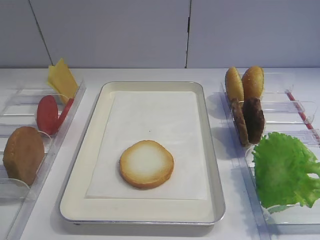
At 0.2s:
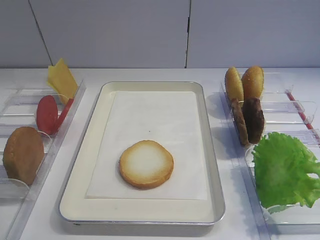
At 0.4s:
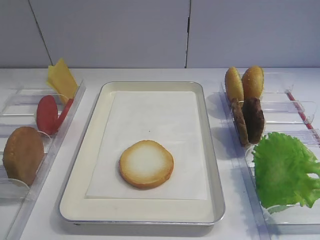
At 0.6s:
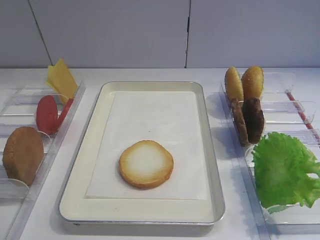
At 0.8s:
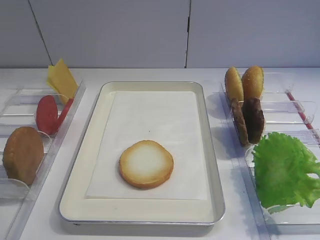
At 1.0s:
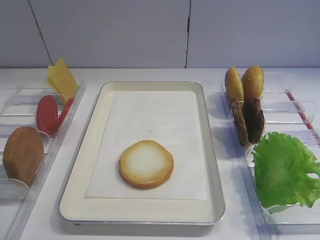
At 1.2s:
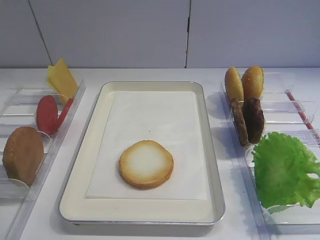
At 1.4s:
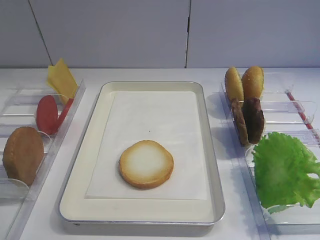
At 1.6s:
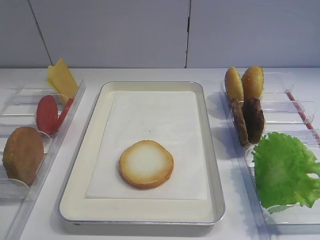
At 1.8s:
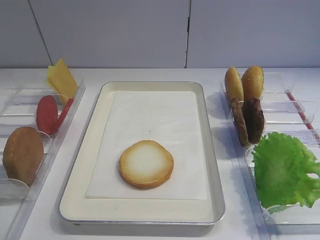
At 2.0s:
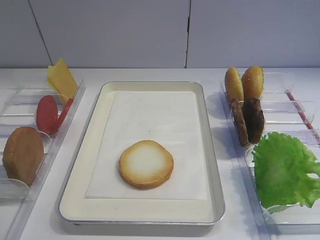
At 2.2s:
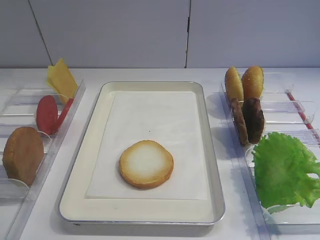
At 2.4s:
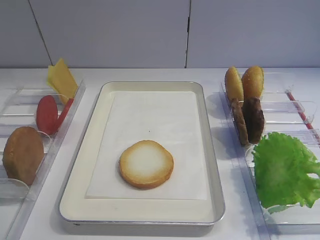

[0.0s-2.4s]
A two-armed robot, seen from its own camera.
0.0s to 2.4s: Both grippers stay about where they are.

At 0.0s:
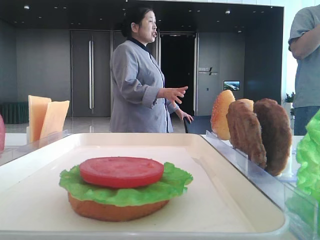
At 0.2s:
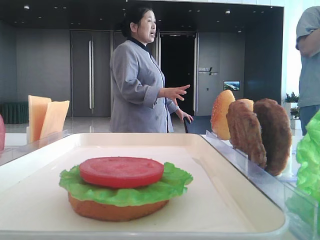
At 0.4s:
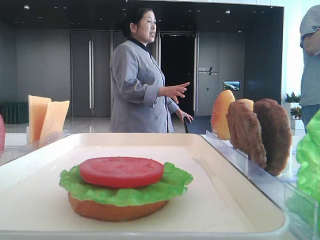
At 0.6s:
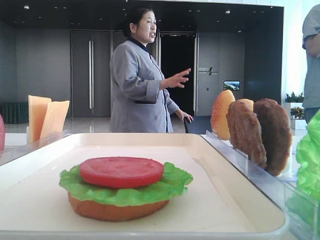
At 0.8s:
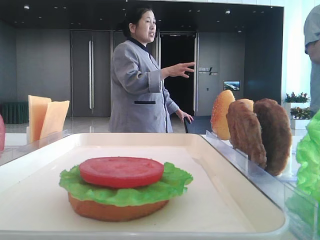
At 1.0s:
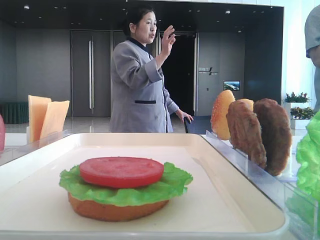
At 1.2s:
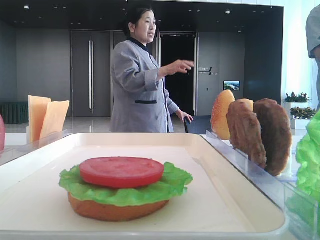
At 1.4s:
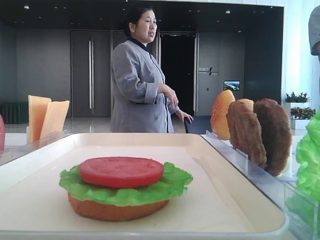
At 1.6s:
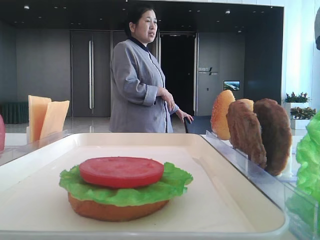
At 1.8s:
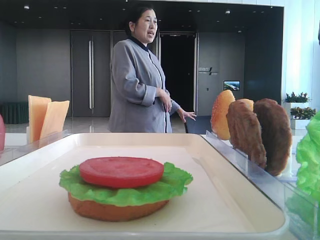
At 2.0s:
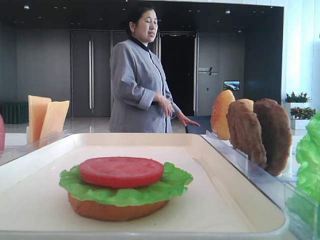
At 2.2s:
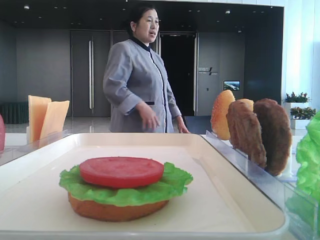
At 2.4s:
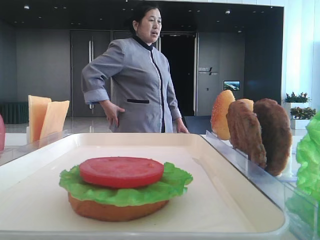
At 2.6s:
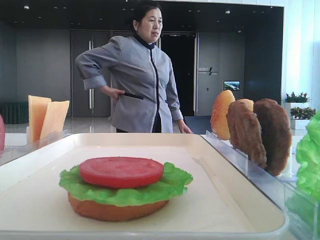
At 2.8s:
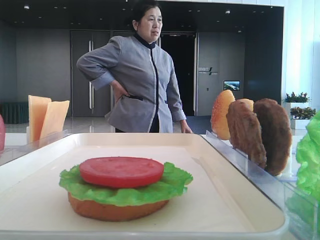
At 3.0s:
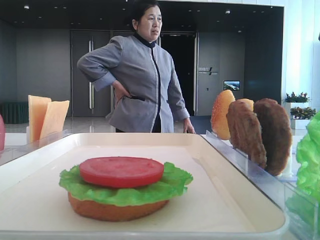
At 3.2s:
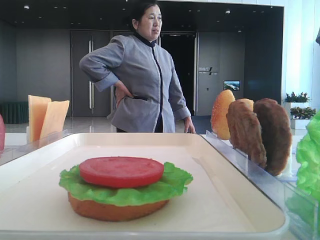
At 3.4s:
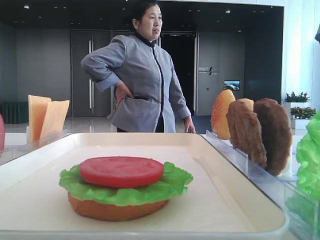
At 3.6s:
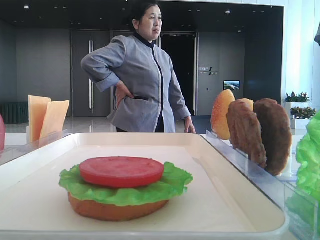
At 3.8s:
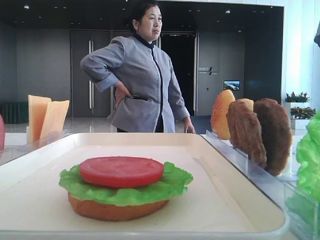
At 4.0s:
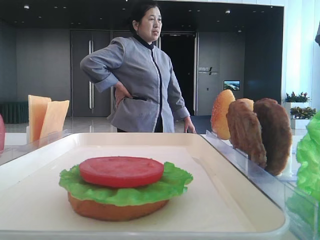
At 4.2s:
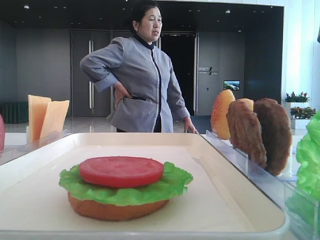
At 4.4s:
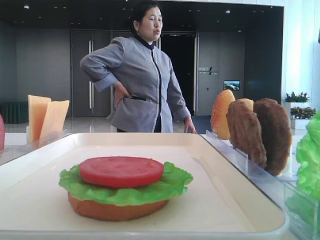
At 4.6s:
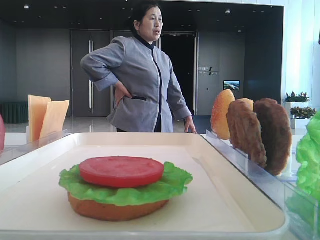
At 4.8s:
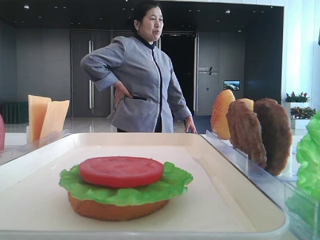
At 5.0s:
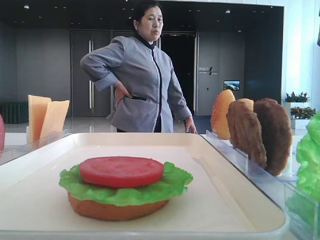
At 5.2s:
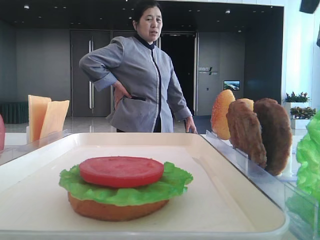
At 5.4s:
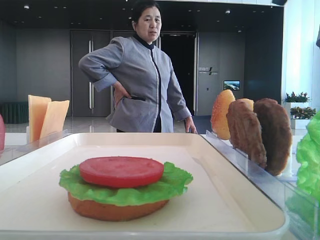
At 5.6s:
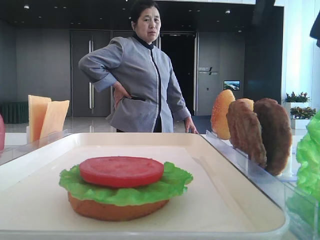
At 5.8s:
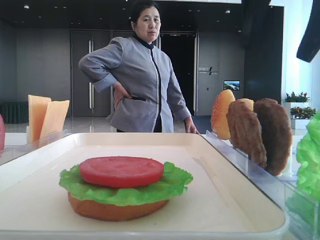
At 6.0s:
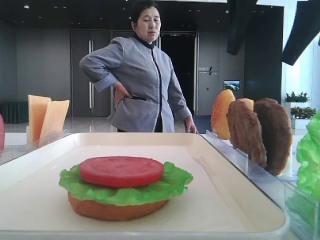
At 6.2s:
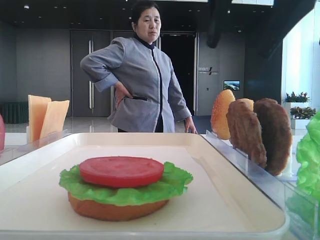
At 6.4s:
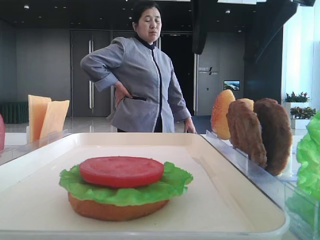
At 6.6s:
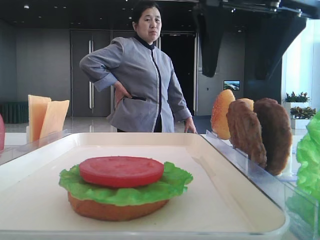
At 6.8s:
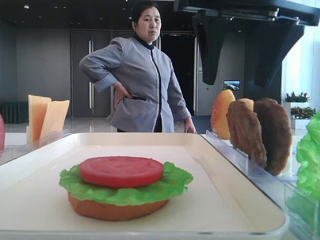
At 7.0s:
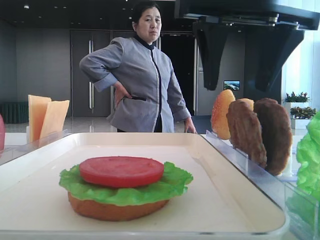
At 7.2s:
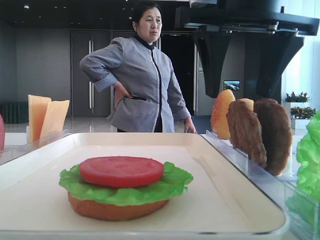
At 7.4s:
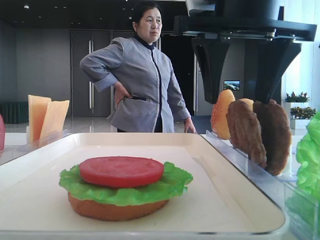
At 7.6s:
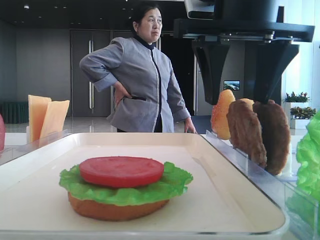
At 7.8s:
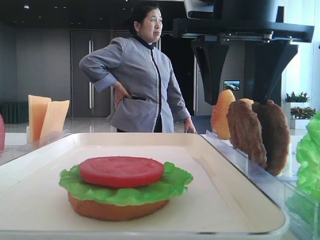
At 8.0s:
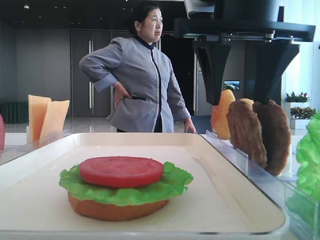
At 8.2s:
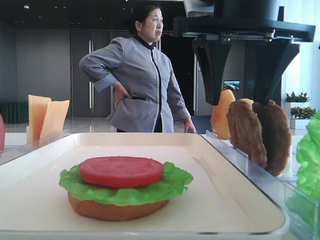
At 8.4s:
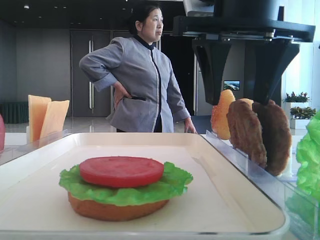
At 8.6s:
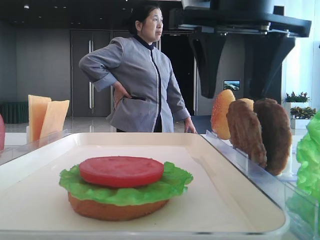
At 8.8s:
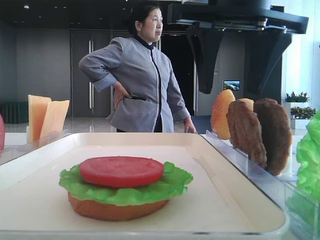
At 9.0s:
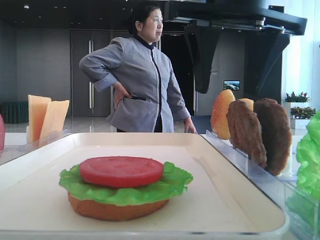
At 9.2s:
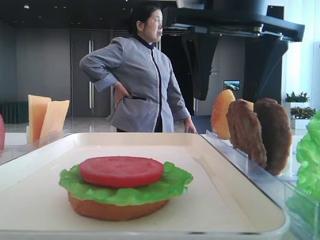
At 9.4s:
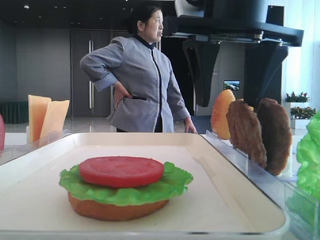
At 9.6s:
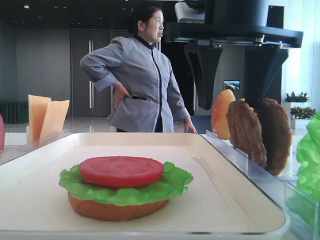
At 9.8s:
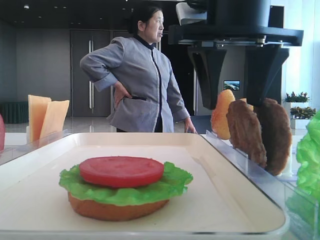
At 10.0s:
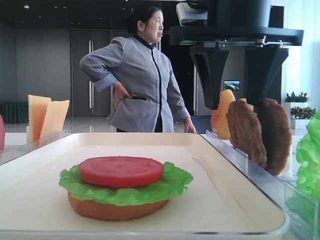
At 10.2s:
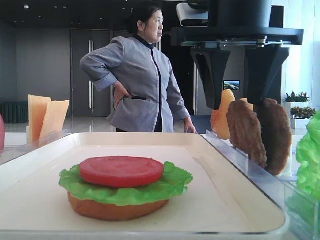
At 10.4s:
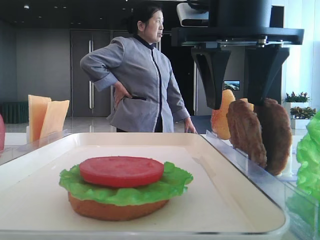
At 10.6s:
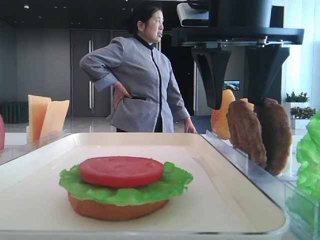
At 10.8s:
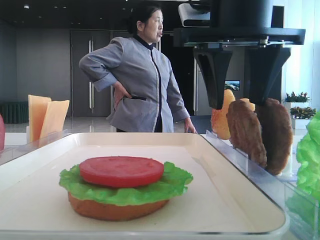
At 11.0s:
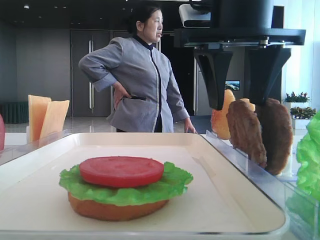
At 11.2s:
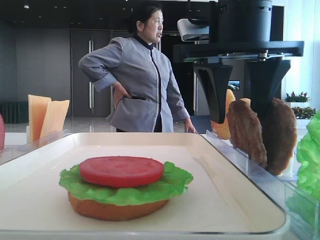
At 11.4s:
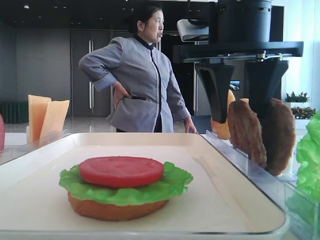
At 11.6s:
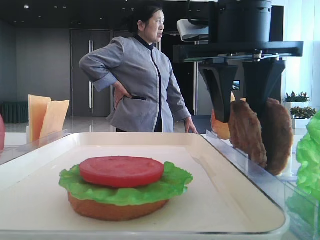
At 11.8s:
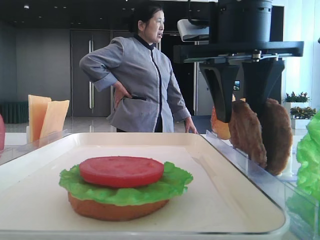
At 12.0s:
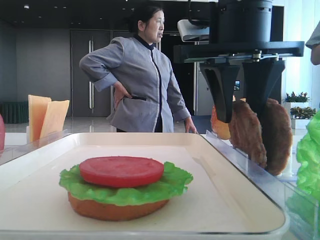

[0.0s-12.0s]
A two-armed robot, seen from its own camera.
1.6s to 3.0s: The right gripper moves forward, roughly 10 cm.
3.0s to 4.4s: The right gripper is displaced forward by approximately 15 cm.
4.4s to 6.0s: The right gripper travels to the left by about 20 cm.
6.0s to 7.6s: The right gripper shifts by some 5 cm.
7.6s to 12.0s: The grippers stay close to where they were, moving slightly.

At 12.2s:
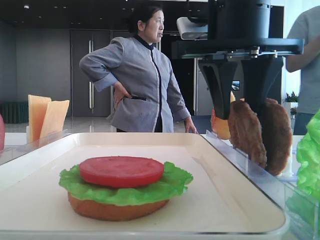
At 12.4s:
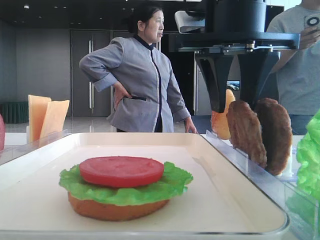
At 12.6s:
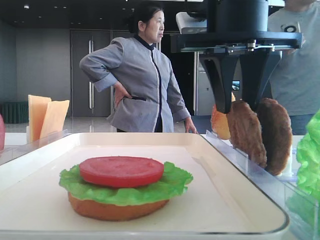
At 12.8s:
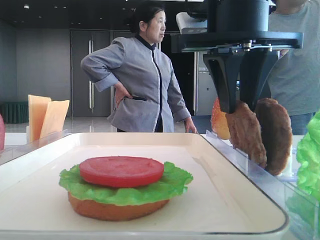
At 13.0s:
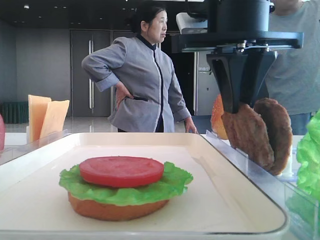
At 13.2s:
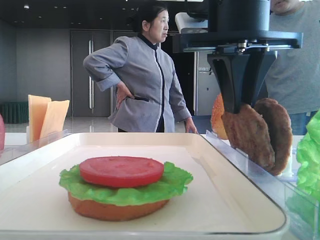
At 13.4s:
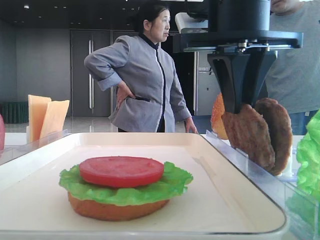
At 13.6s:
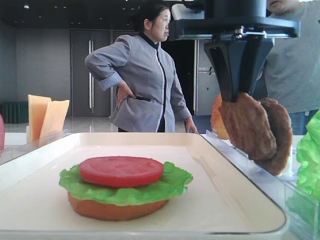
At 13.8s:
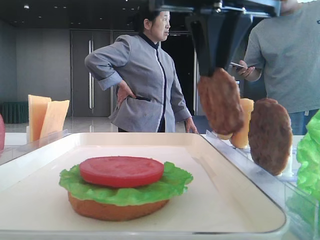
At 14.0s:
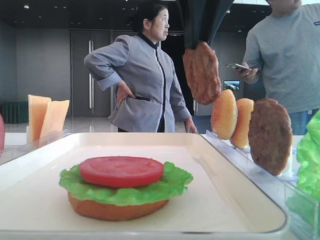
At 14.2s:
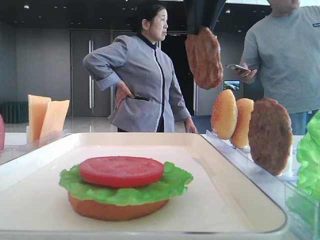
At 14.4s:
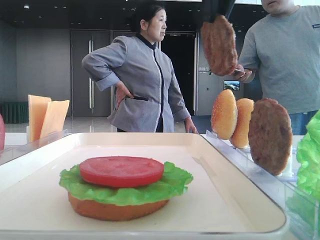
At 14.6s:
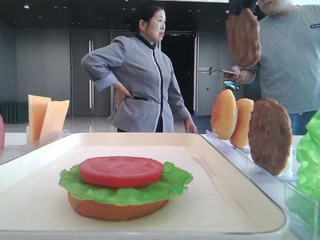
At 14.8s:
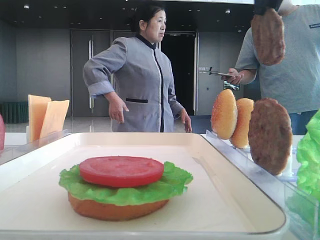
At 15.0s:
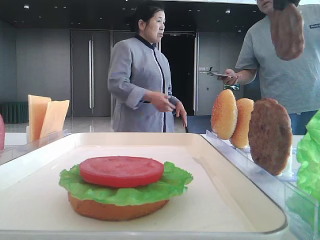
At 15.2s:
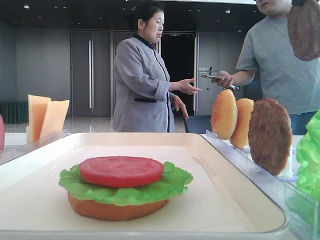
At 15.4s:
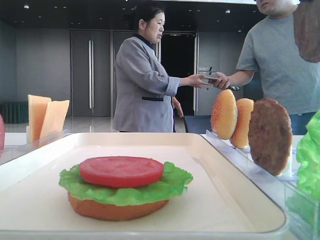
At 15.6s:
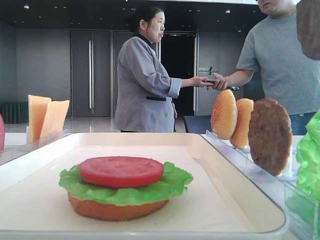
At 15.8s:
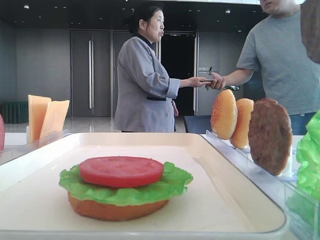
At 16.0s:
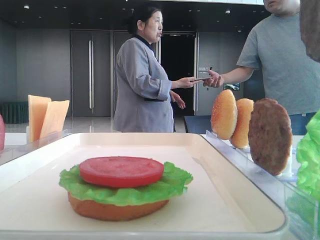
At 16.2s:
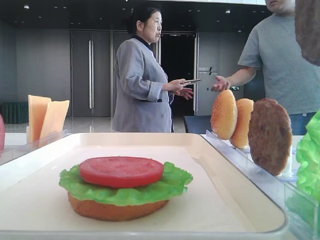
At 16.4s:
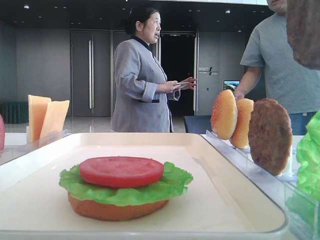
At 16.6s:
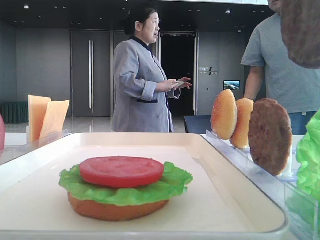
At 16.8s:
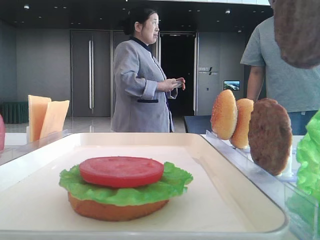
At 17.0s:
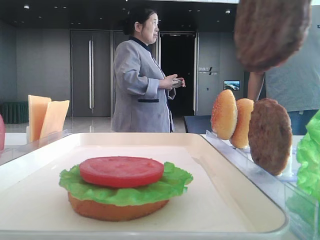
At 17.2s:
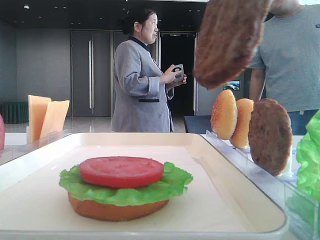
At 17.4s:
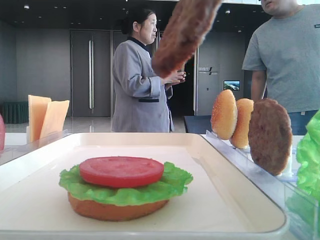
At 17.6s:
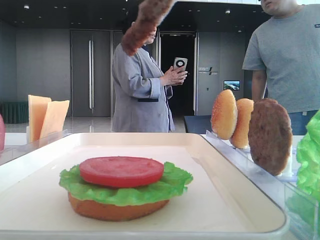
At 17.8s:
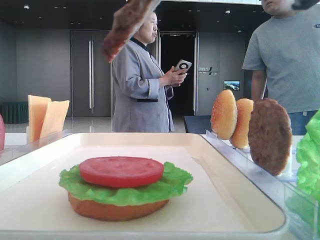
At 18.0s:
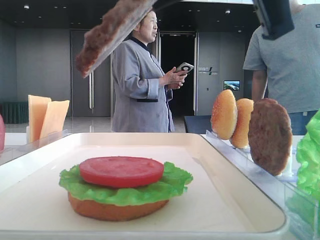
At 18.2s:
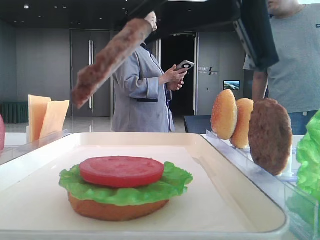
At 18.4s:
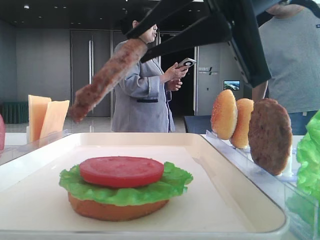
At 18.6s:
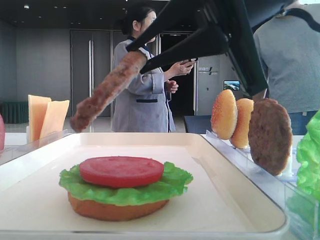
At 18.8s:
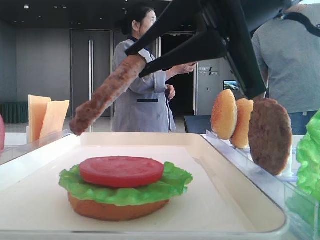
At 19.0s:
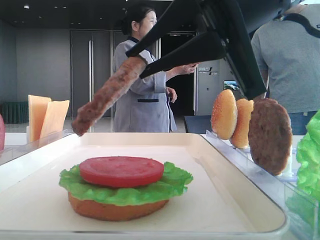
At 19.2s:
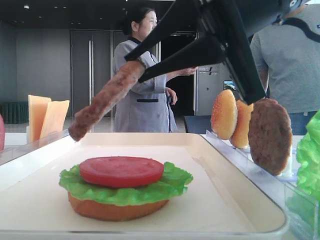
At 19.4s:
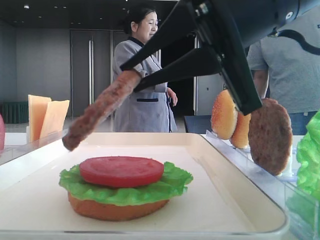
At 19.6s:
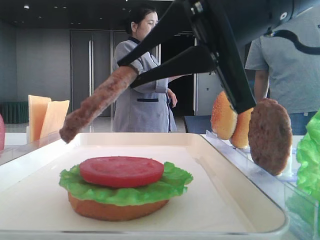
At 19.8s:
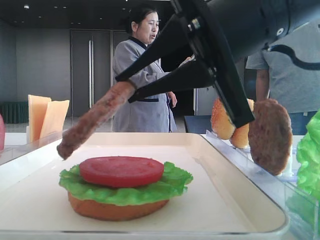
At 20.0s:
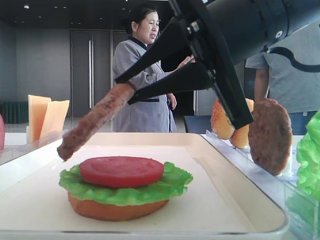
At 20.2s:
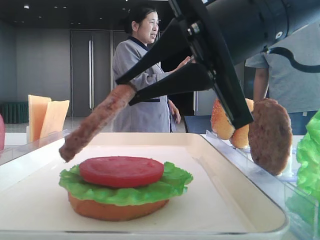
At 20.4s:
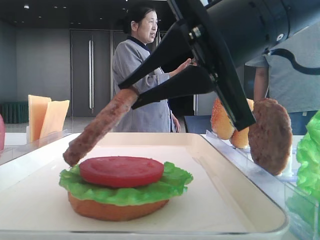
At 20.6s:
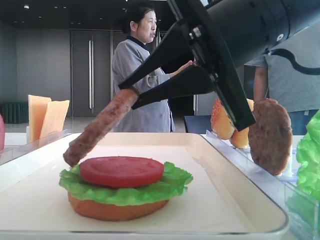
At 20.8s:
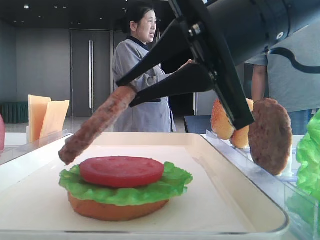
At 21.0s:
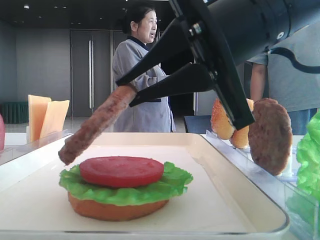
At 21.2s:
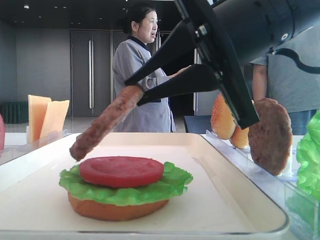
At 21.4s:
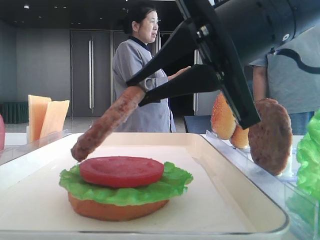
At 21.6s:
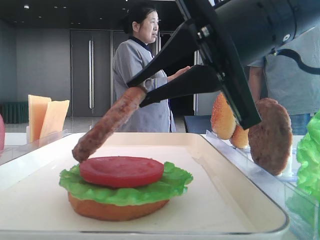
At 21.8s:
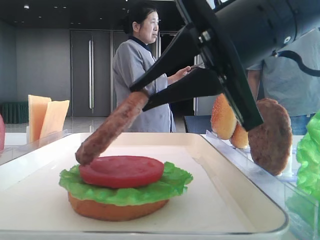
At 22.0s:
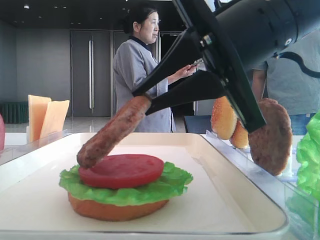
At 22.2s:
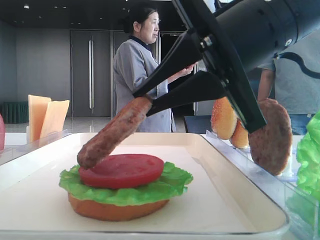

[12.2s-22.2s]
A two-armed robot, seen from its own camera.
12.2s to 13.6s: The right gripper closes.
13.6s to 15.0s: The right gripper heads upward and to the right, covering approximately 15 cm.
15.0s to 16.4s: The right gripper moves backward, about 15 cm.
16.4s to 18.0s: The right gripper is displaced downward by roughly 10 cm.
18.0s to 19.4s: The right gripper moves downward, about 5 cm.
19.4s to 20.8s: There are only small adjustments of the grippers.
20.8s to 22.2s: Neither gripper changes place.
